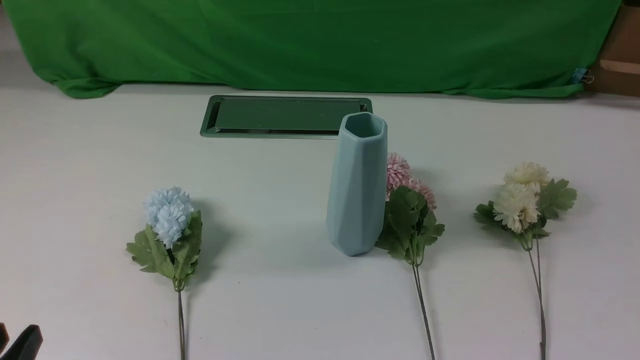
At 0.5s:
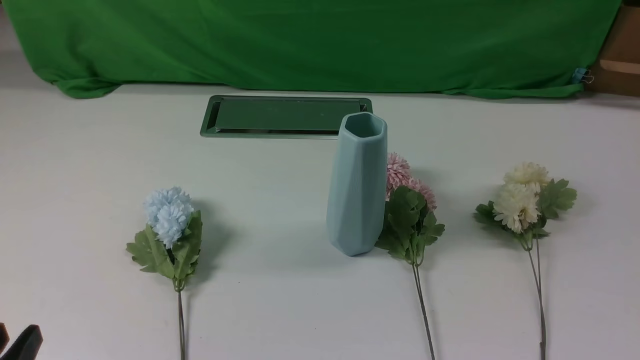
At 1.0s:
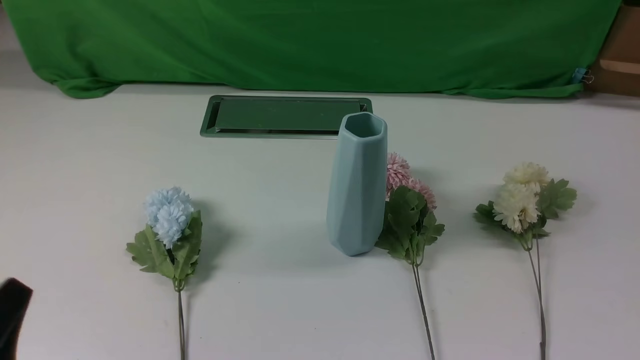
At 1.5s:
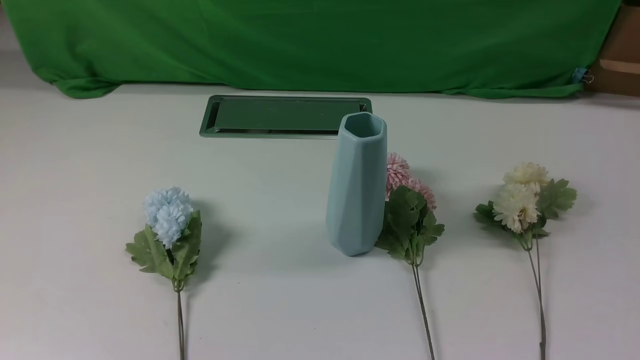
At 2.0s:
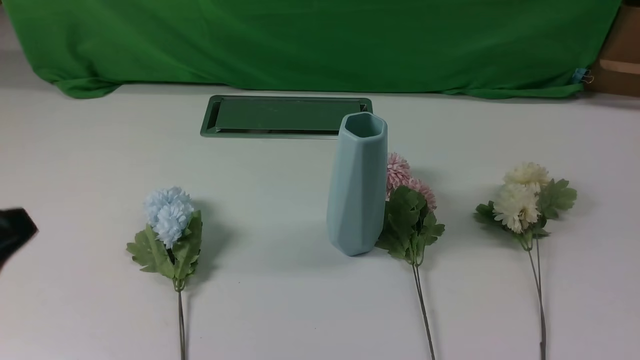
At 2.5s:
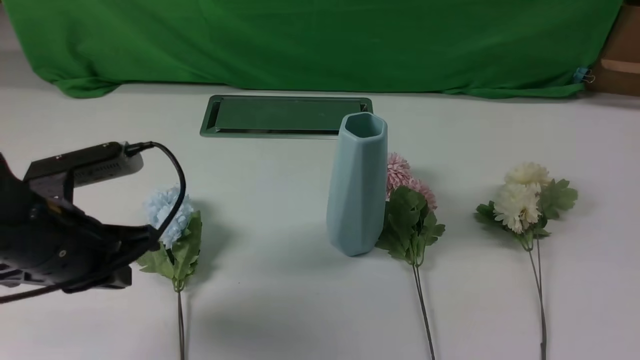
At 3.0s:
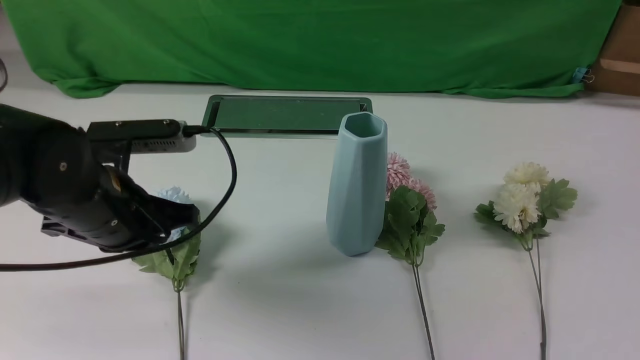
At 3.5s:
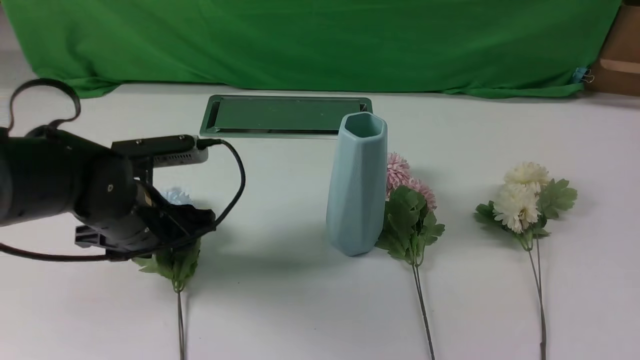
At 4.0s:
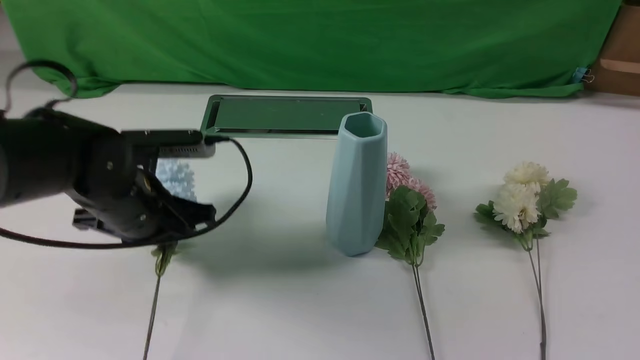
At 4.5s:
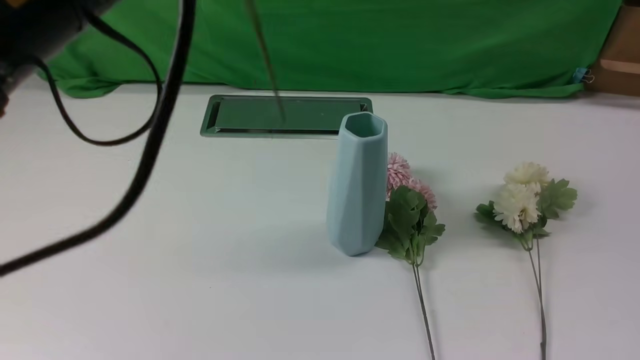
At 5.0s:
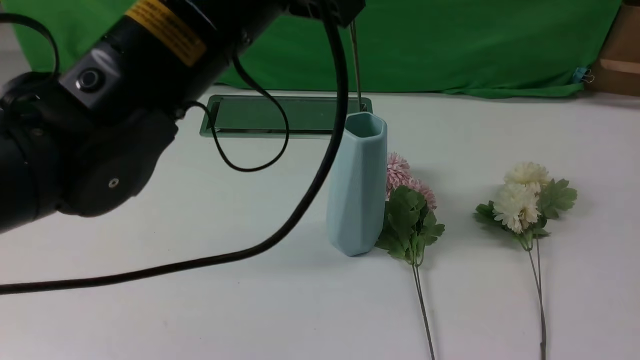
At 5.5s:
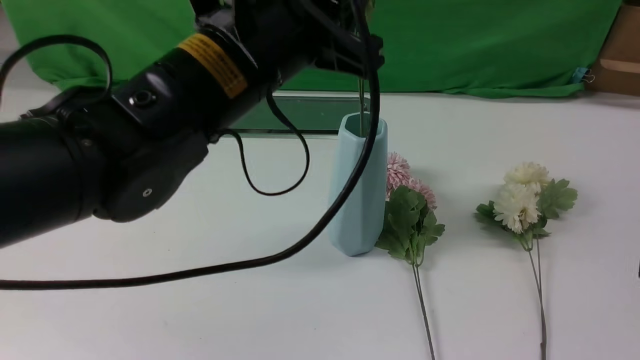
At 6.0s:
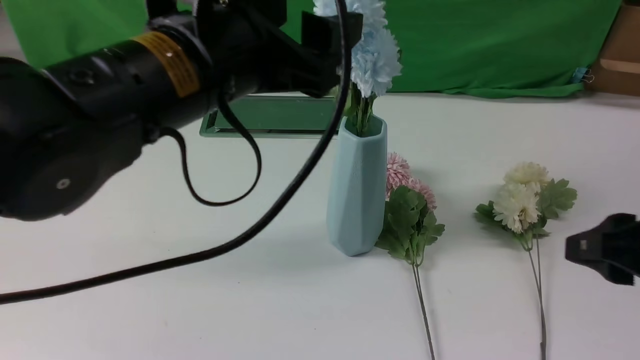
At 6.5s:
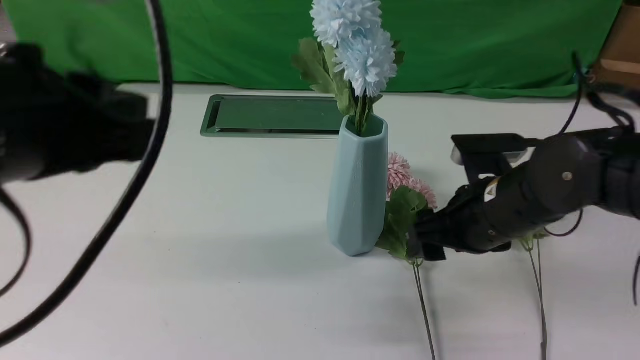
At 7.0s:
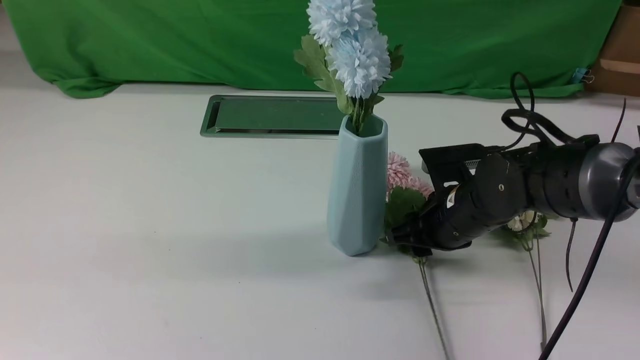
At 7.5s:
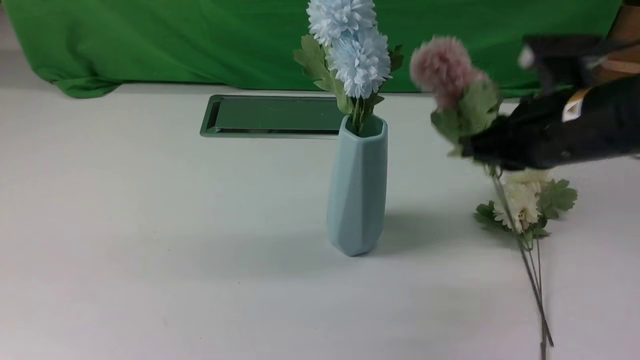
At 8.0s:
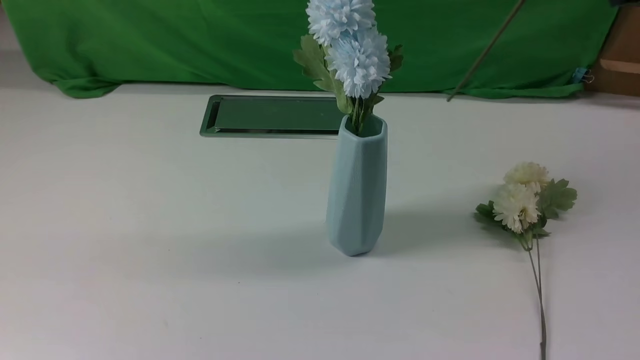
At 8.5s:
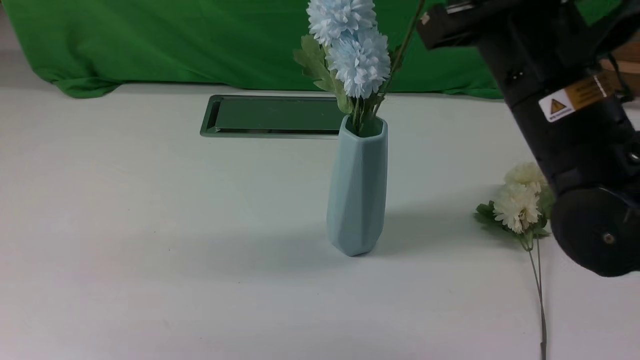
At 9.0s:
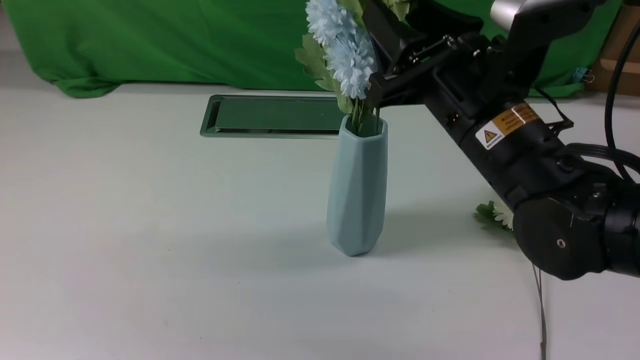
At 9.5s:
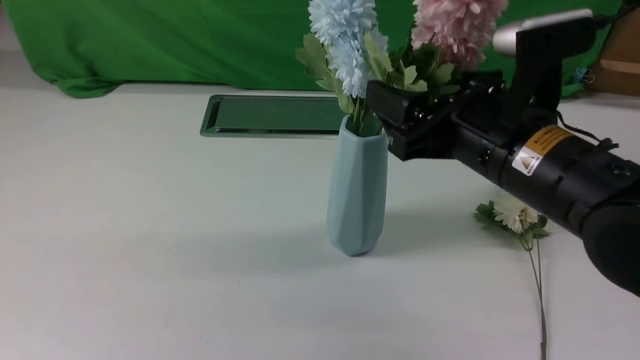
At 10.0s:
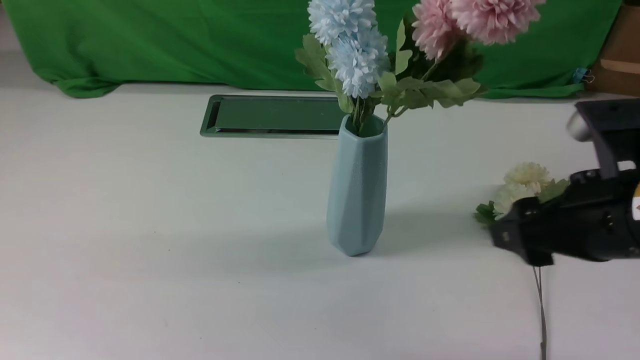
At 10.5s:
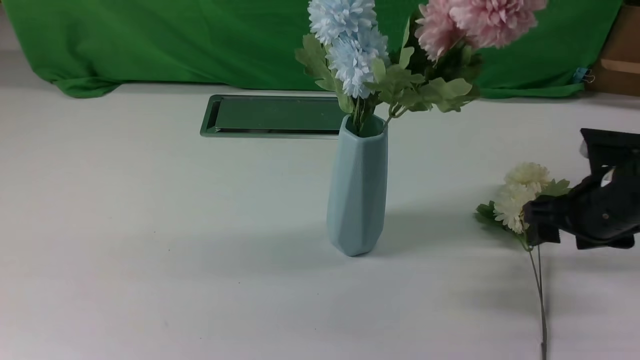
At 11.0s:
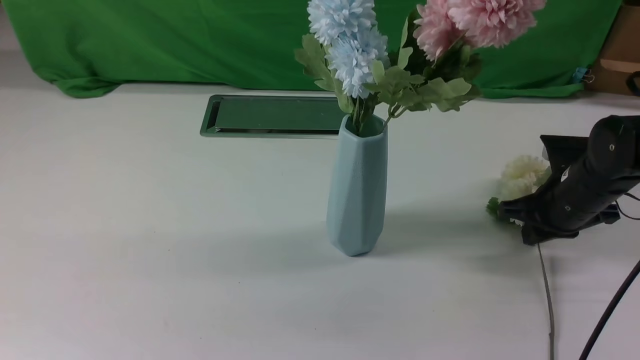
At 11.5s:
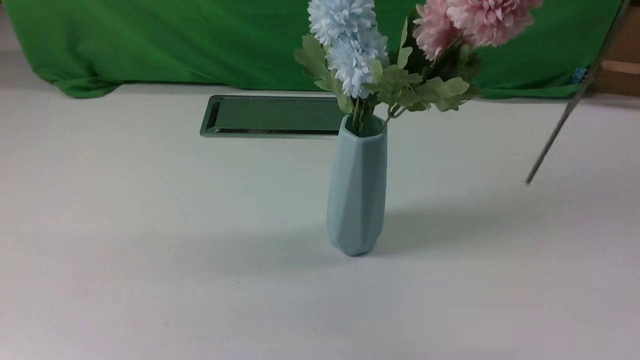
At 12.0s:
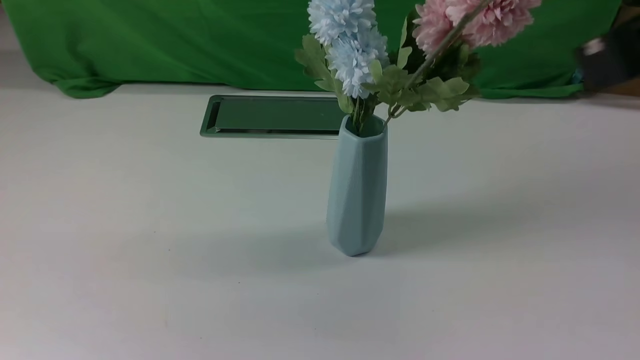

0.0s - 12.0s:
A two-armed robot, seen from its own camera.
Task of the whole recording: insert the flowers into the vase on the white table.
Step, 0.0s - 3.5s: use the left arm to grab a bunch of fresh flowers.
Step, 4.0s - 6.0s: use the left arm to insert the flowers into the vase.
Step, 6.5s - 7.0s: use the right arm to grab a bunch of fresh flowers.
Step, 7.5s - 9.5s: use the right arm to insert the flowers into the vase.
Step, 10.0s - 11.0s: use the right arm to grab a bunch of fresh flowers.
0.0s - 2.0s: The left gripper goes roughly 15 cm upward and forward, and closes up.
2.0s - 4.0s: The right gripper travels upward and forward by roughly 10 cm, while the left gripper heads forward and downward, covering roughly 20 cm, and opens, then closes again.
4.0s - 6.0s: The left gripper moves upward, to the right and backward, some 20 cm, and opens. The right gripper heads forward, covering about 5 cm.
6.0s - 8.0s: The right gripper travels upward and to the left by roughly 15 cm, and closes up; the left gripper moves backward and to the left, approximately 20 cm, and closes.
8.0s - 10.0s: The right gripper heads downward, covering approximately 10 cm, and opens.
10.0s - 12.0s: The right gripper shifts some 15 cm upward and backward, and closes up.

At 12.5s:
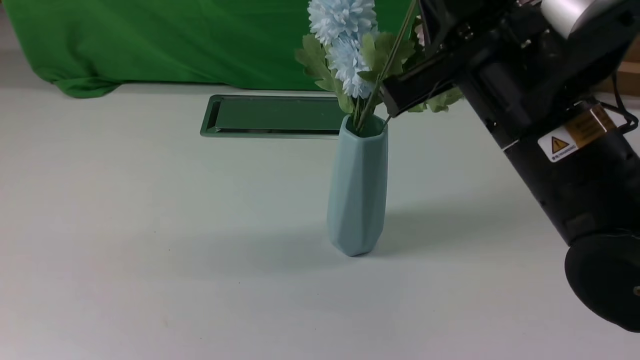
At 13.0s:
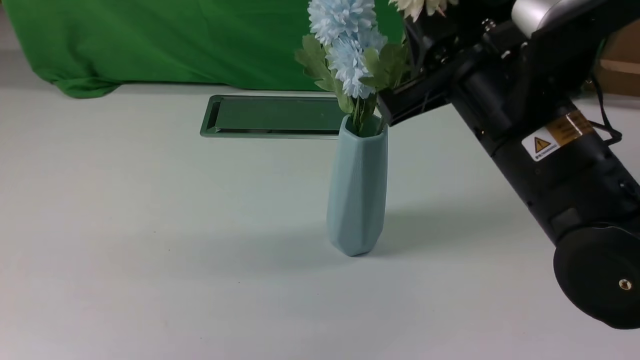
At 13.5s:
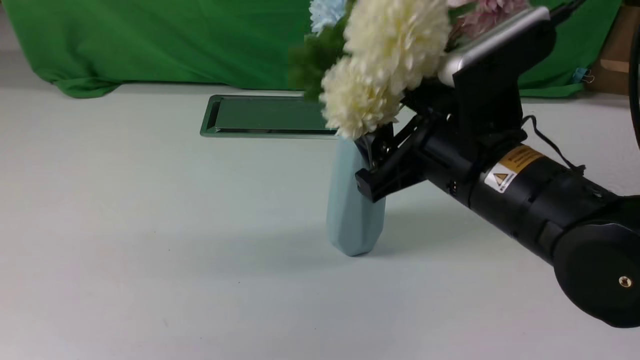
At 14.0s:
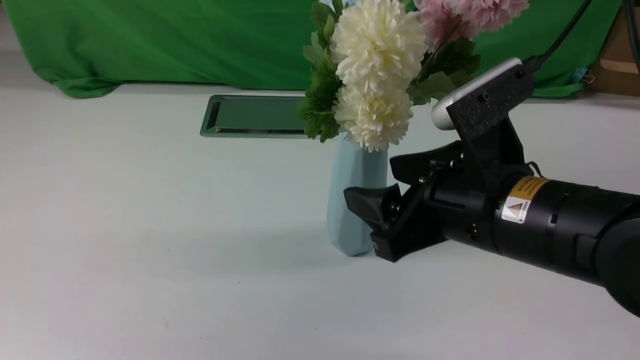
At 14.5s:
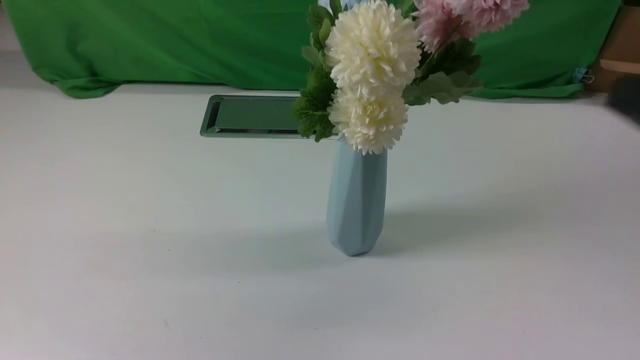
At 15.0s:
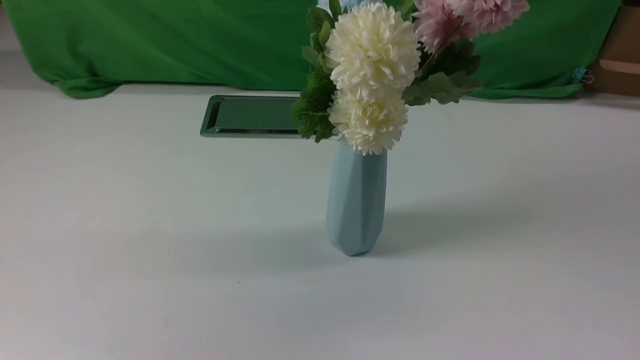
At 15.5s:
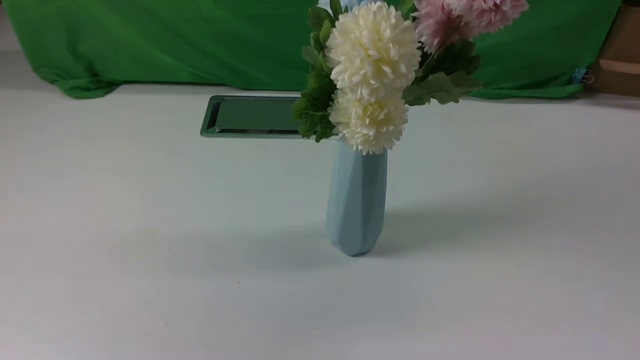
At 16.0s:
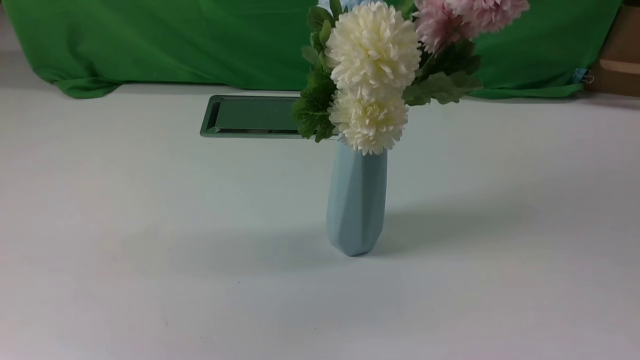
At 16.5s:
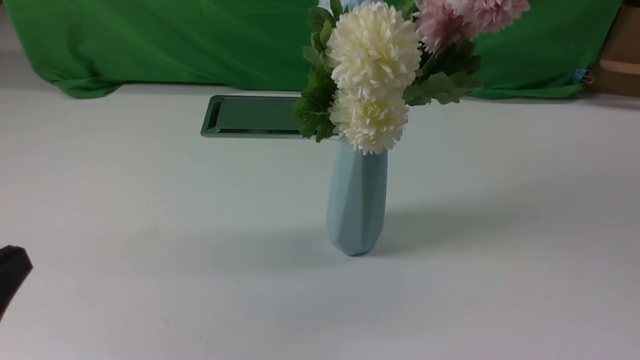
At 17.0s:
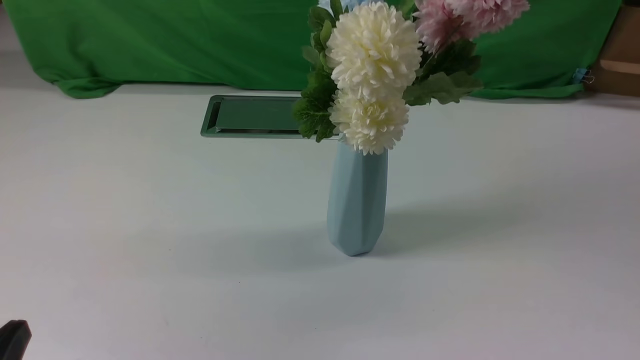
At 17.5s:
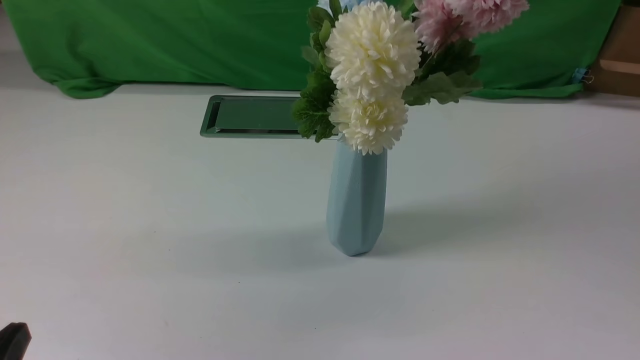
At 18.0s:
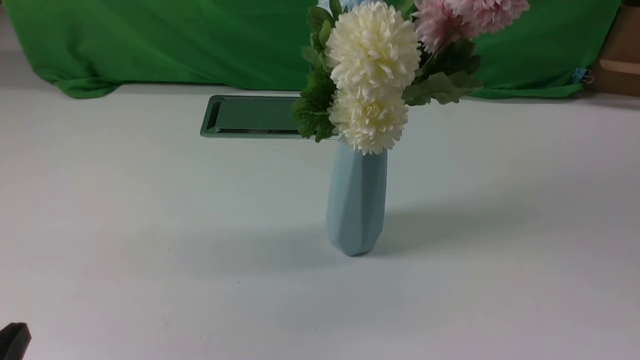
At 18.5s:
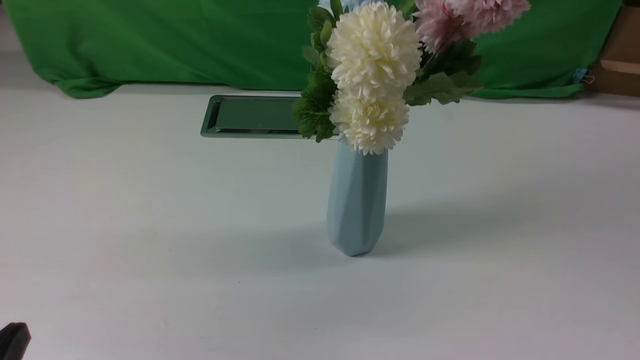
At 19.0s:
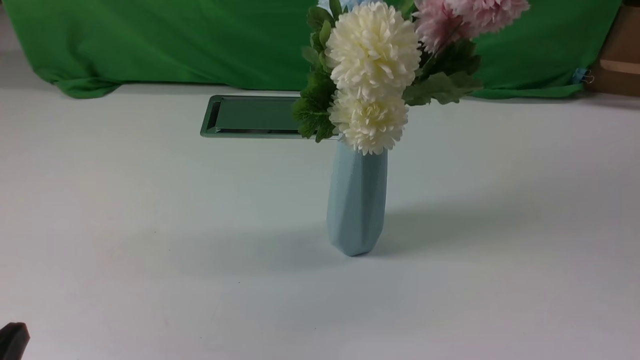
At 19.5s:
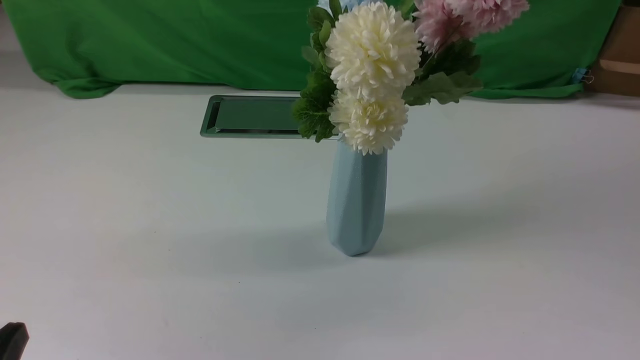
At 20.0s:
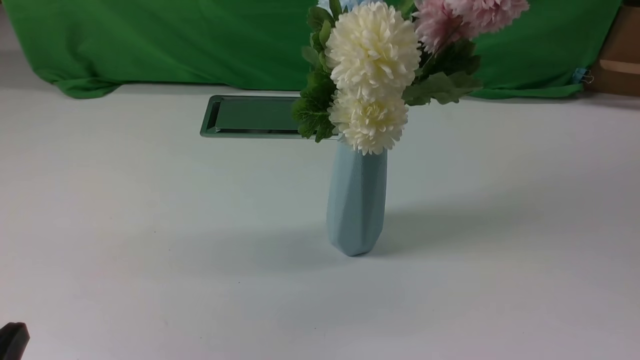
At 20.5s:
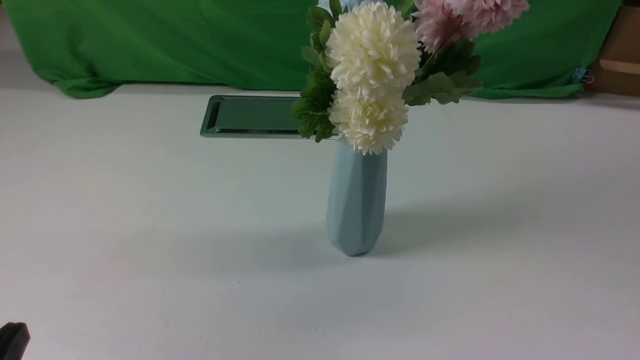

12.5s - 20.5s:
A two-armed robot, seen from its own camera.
Task of the whole recording: insert the flowers into the vase on the white table.
12.5s - 14.5s: The right gripper is displaced to the right and backward by approximately 15 cm, and opens and closes again.
14.5s - 16.5s: The left gripper shifts about 15 cm downward.
16.5s - 18.5s: The left gripper travels downward by approximately 10 cm.
